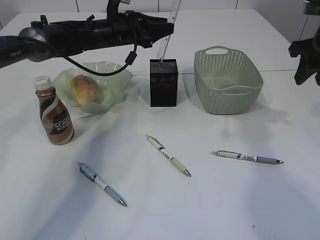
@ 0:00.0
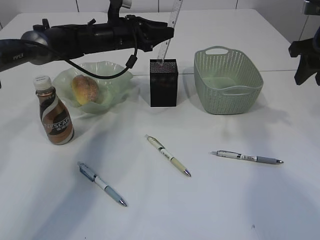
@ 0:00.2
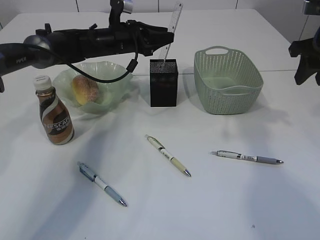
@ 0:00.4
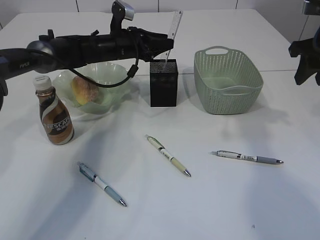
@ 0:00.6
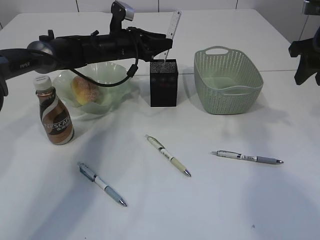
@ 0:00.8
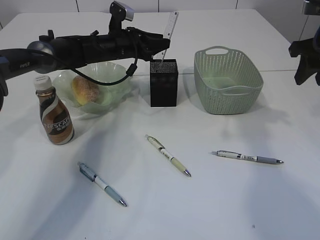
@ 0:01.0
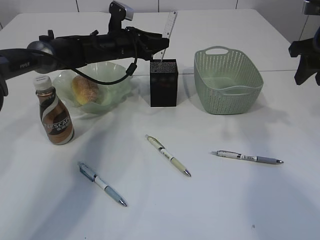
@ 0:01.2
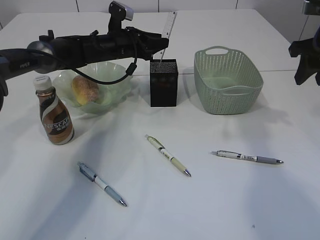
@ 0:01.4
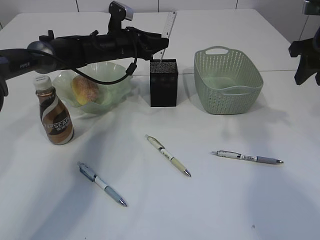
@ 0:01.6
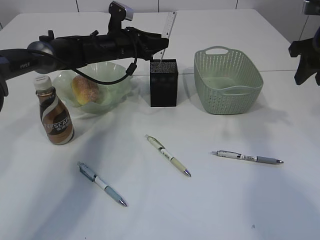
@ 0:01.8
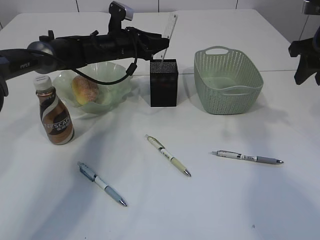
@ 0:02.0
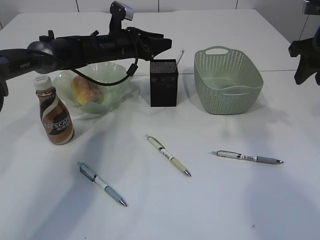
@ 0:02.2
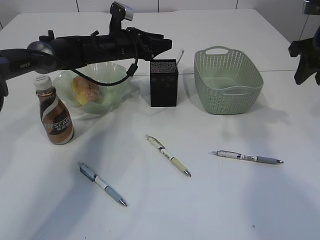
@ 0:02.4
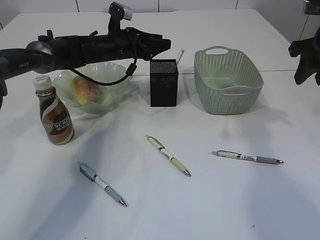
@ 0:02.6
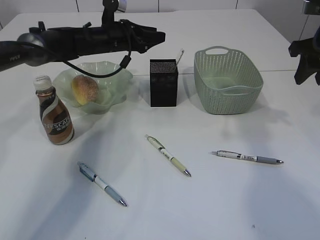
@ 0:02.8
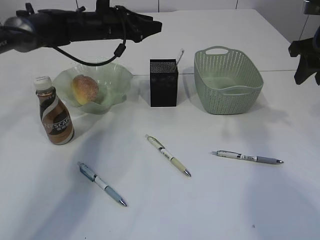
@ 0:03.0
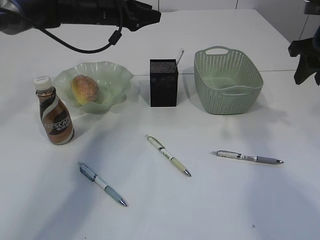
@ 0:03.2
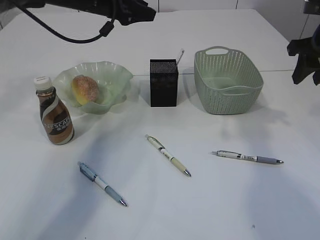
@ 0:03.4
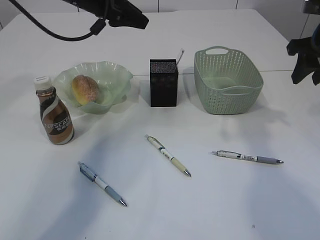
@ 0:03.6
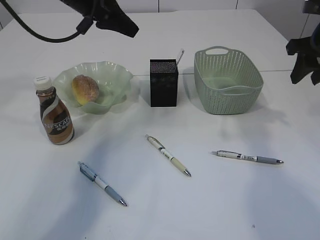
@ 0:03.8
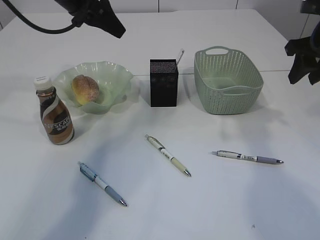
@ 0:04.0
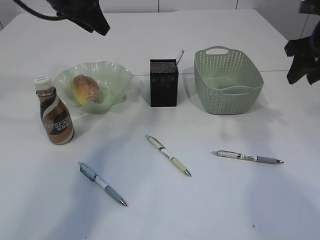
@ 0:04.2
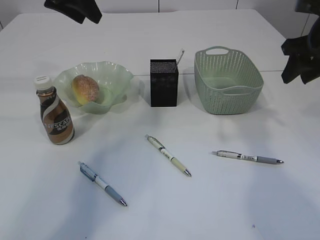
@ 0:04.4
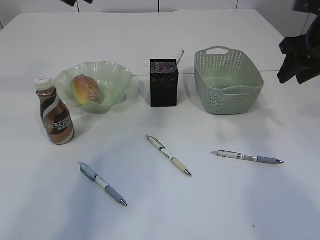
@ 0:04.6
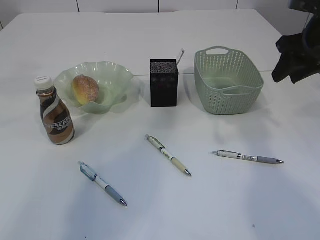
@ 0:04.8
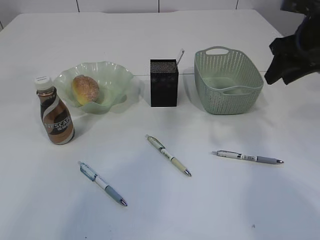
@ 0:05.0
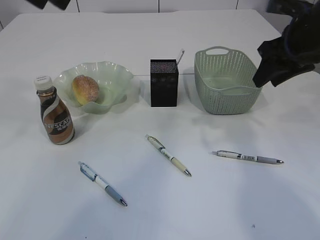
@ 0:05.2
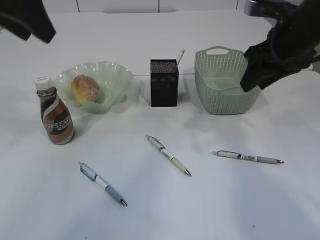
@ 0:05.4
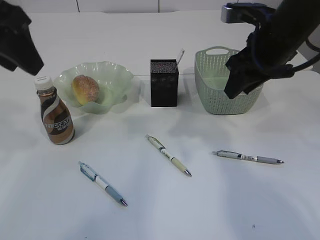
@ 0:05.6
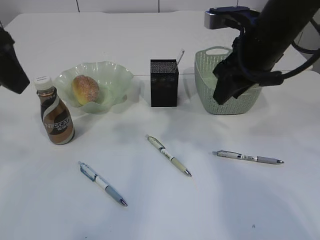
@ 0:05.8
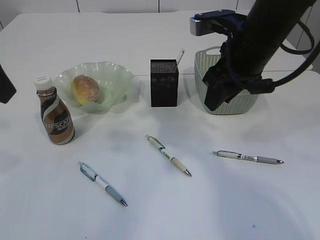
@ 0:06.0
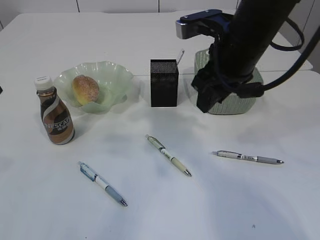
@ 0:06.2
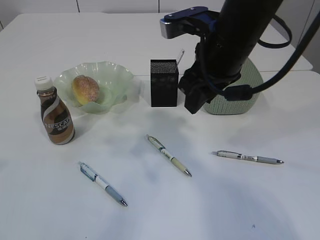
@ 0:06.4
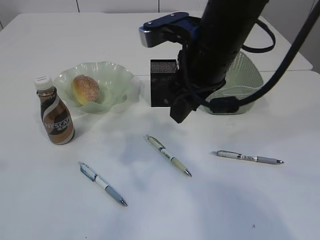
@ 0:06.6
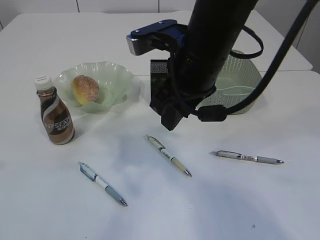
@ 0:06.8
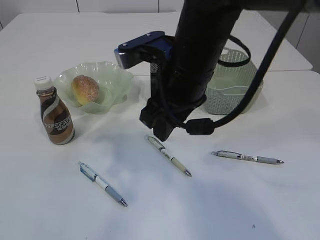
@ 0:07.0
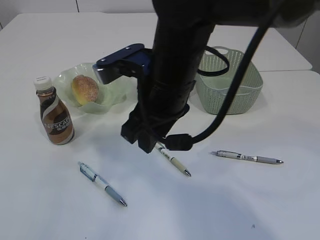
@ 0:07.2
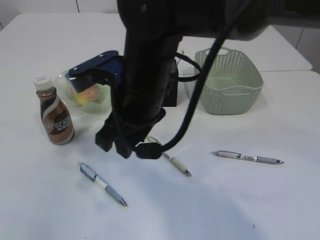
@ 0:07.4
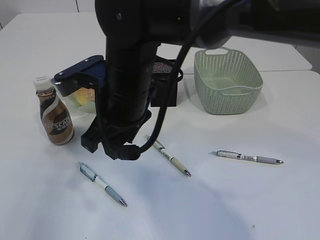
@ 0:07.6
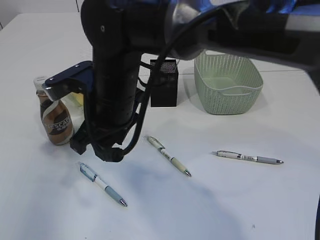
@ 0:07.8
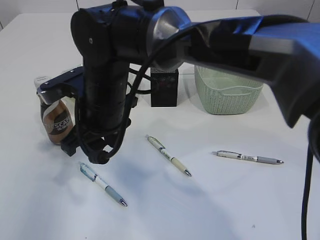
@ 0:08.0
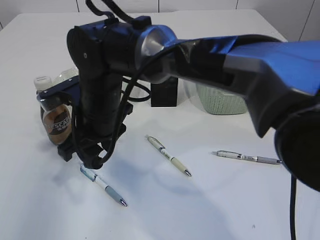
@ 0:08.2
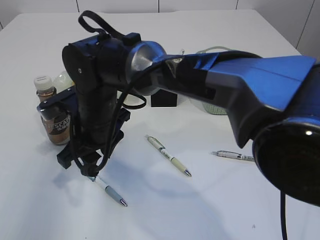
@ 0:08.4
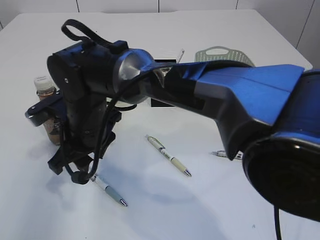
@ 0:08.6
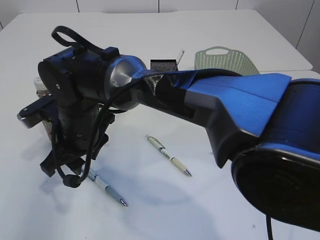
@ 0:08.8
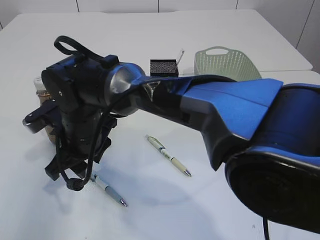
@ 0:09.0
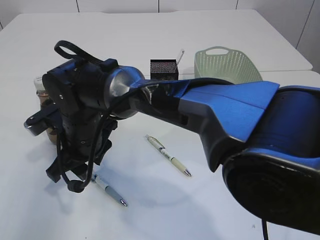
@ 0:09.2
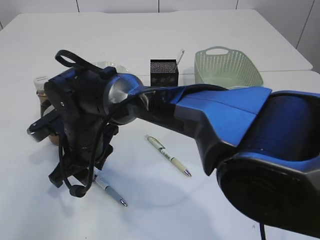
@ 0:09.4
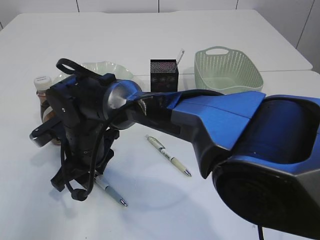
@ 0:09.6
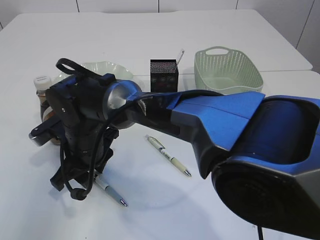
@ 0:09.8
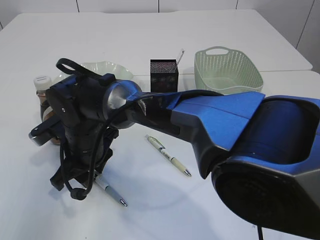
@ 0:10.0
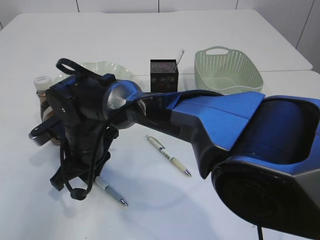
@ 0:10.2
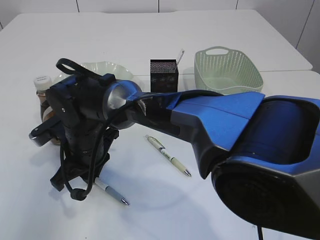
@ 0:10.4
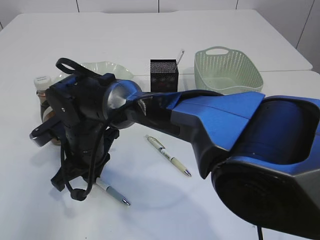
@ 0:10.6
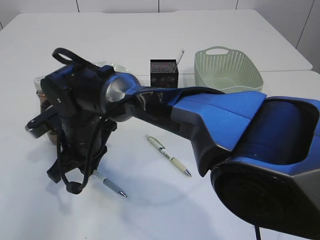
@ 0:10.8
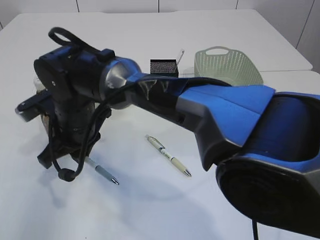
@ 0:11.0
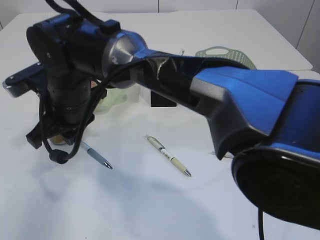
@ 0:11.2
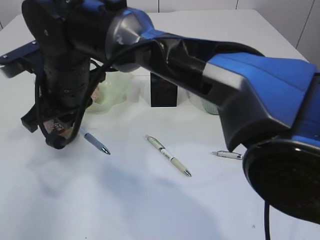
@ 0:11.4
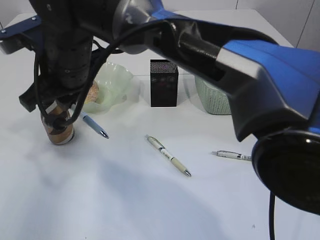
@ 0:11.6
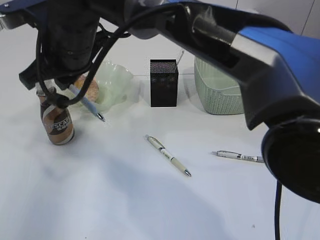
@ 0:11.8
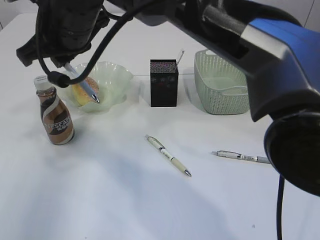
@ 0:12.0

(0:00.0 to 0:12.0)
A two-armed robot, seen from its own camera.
Step, 0:00.0 - 0:02.8: Place the ruler into the pen holder.
Step, 0:03.0 - 0:11.8: Pick up the pen with right arm.
0:00.0 - 0:01.6: The grippers move only a little.
0:01.6 - 0:03.0: The left gripper goes roughly 5 cm upward.
0:03.0 - 0:04.4: The left gripper travels upward, backward and to the left by about 20 cm.
0:04.4 - 0:06.0: The left gripper travels backward by about 20 cm, while the right gripper heads to the left, covering roughly 15 cm.
0:06.0 - 0:07.6: The left gripper goes about 10 cm to the left. Meanwhile the right gripper moves to the left, about 20 cm.
0:07.6 - 0:09.0: The right gripper travels downward and to the left by about 10 cm.
0:09.0 - 0:10.4: The right gripper closes.
0:10.4 - 0:12.0: The right gripper travels upward by about 20 cm.

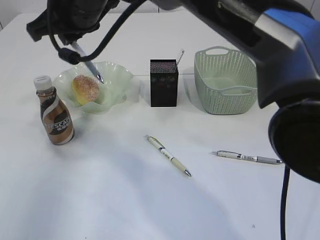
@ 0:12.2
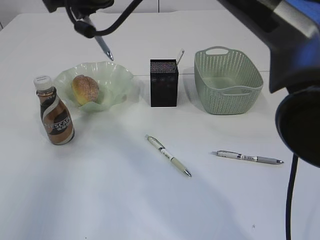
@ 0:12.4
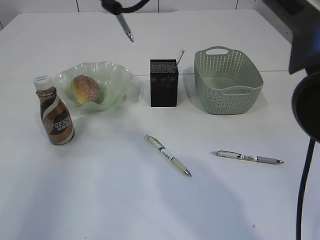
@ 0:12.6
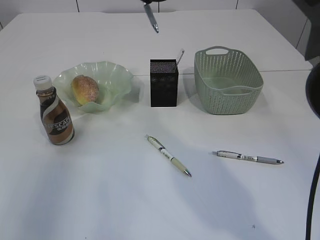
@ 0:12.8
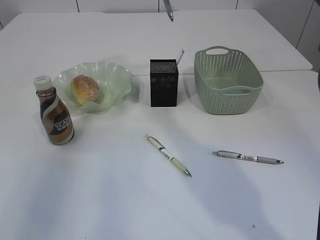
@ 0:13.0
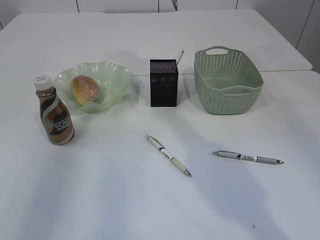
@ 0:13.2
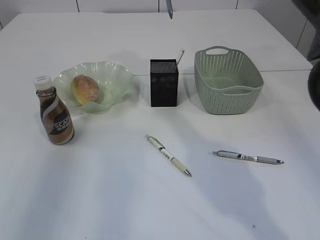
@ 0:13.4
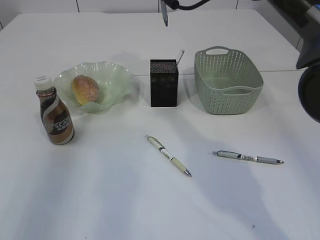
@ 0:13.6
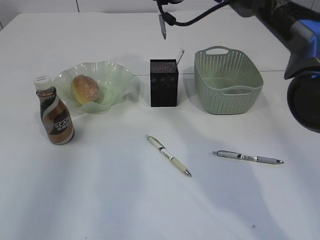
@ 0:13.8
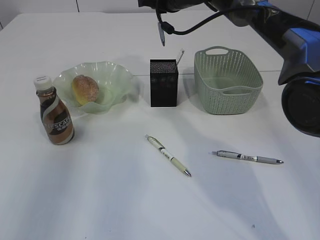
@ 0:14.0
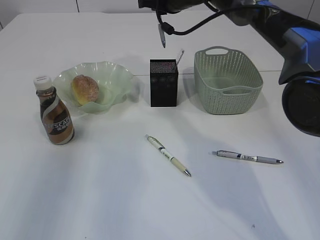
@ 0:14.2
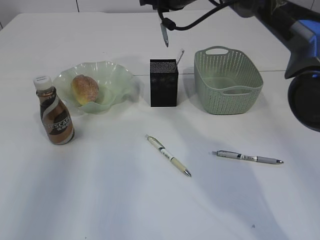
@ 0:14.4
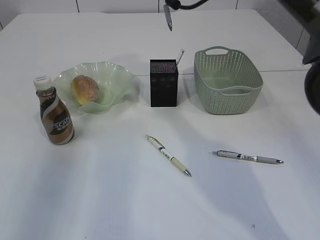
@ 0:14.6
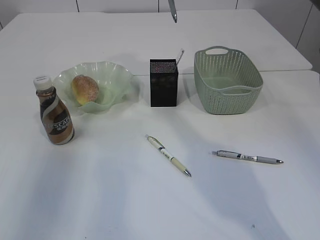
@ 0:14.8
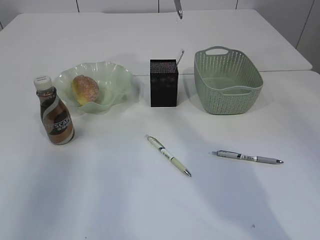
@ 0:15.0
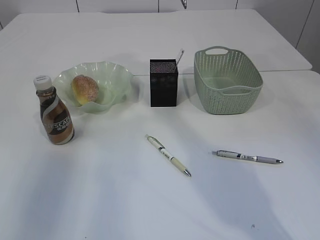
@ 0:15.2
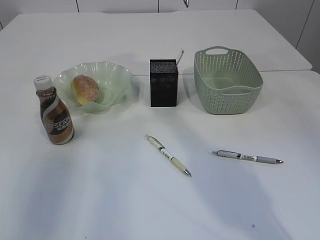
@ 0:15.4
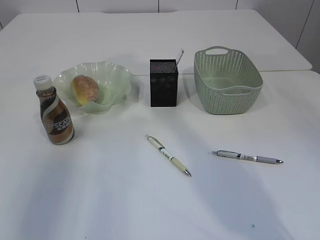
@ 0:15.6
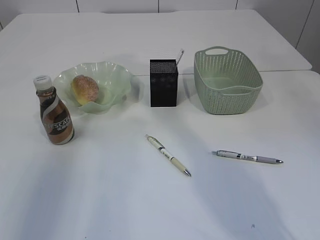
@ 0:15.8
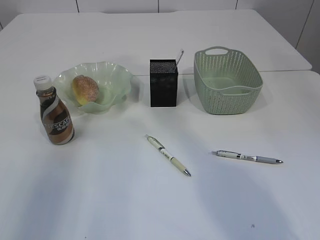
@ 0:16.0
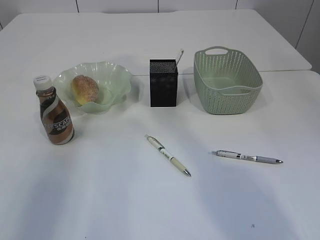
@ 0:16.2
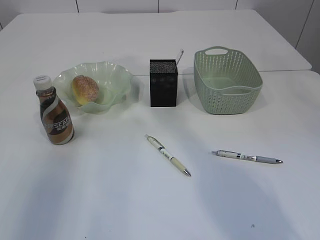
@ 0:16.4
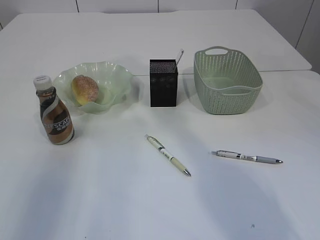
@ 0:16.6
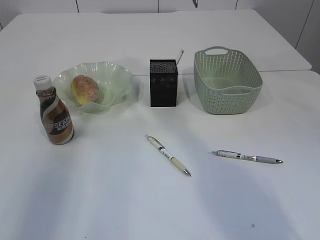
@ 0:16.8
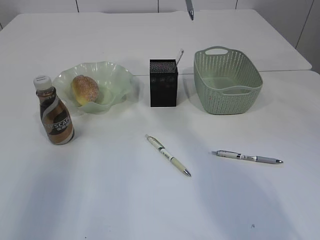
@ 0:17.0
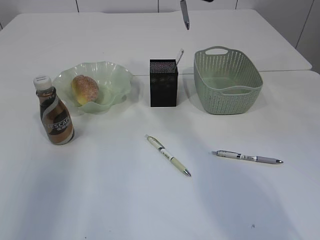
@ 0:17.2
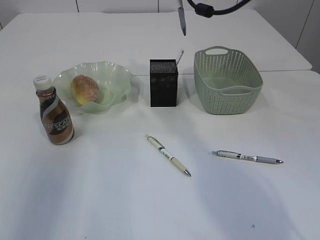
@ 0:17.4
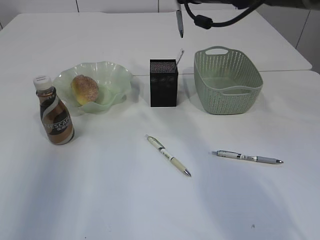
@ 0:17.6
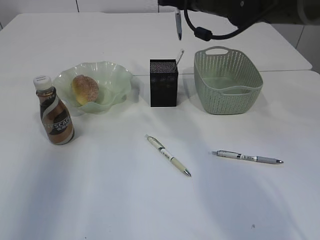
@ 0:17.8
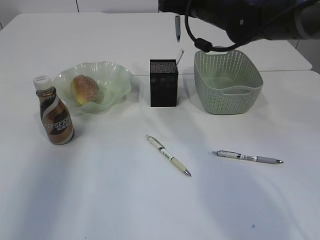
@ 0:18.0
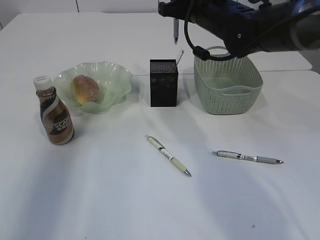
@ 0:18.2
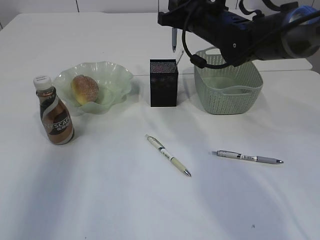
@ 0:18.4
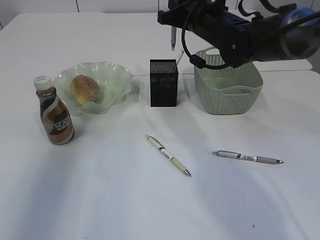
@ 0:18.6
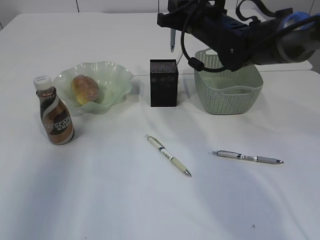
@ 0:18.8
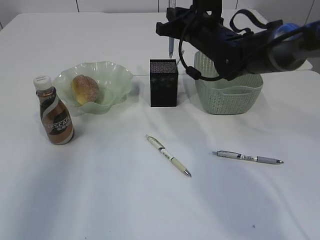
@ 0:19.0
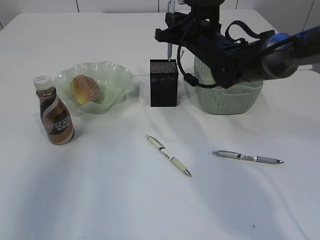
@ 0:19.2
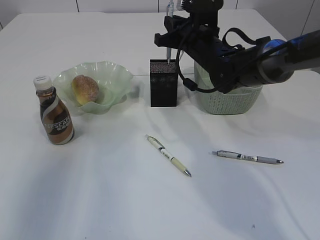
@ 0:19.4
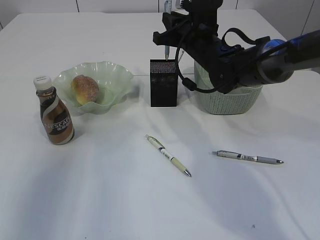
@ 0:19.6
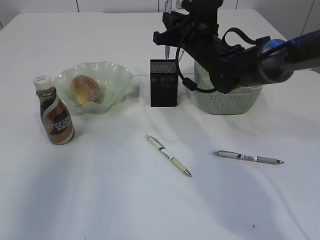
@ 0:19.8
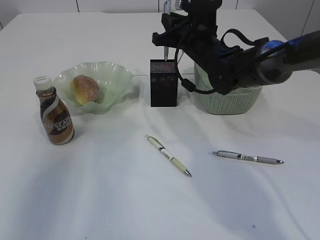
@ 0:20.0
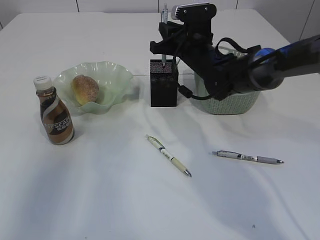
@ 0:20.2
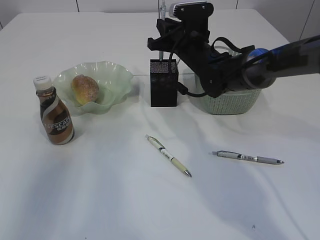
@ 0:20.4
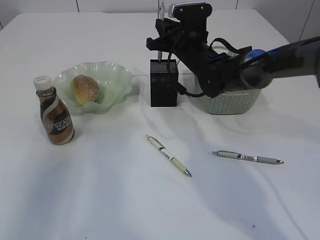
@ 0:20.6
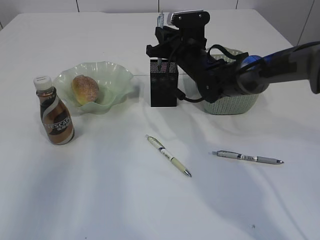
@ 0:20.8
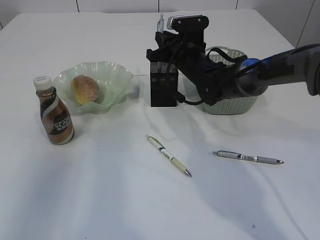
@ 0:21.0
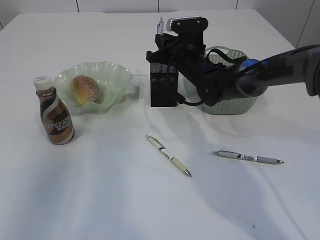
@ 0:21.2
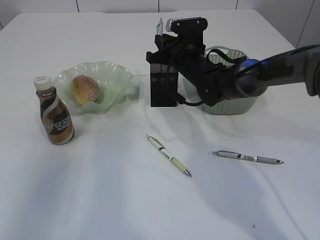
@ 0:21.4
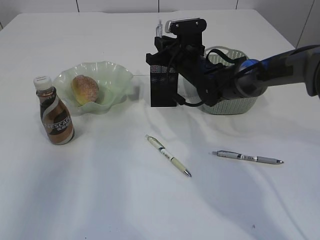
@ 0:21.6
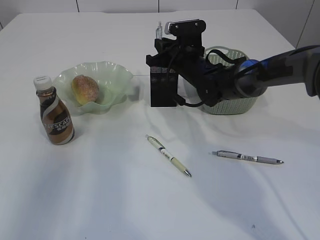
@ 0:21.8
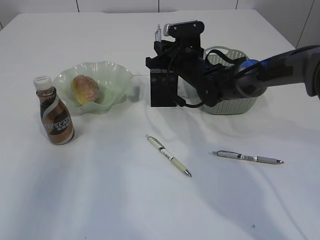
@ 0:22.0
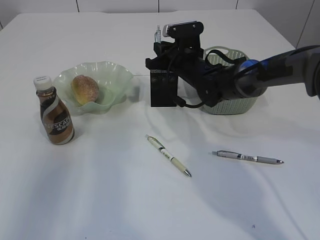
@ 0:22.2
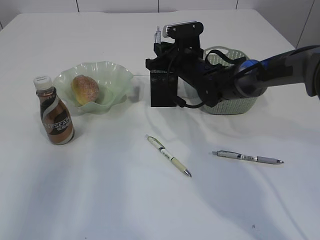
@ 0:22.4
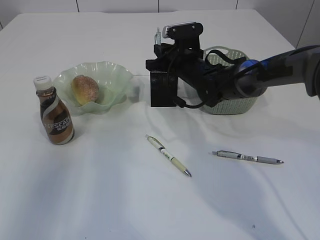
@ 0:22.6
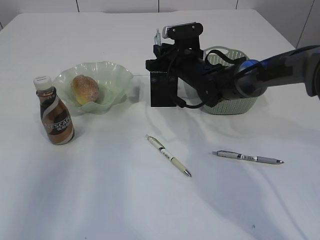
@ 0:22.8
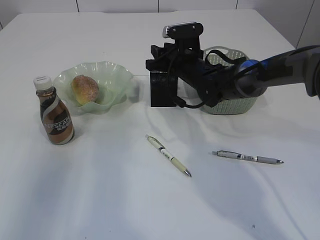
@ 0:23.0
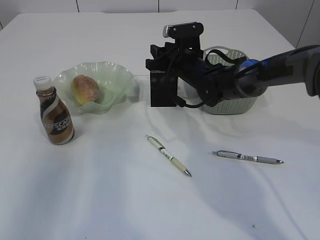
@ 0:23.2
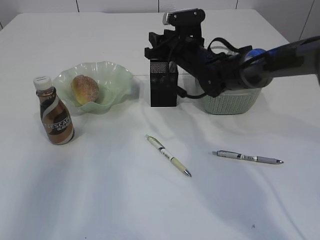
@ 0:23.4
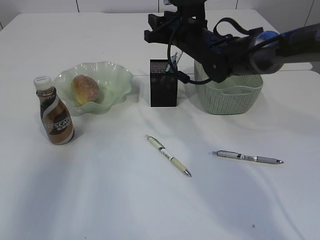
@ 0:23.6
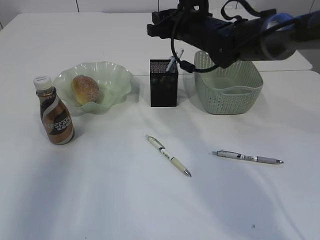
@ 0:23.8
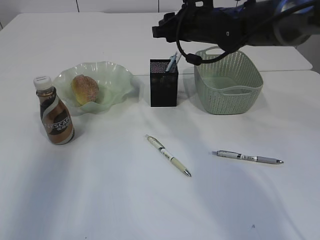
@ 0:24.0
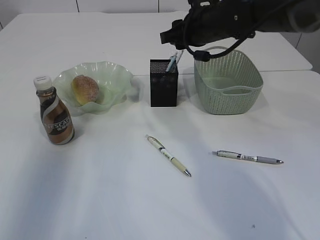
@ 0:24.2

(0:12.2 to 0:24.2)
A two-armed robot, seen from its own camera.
Step, 0:12.2 - 0:23.8: Place the pen into the pen holder.
0:12.2 - 0:13.8: The right gripper travels to the right and forward by about 20 cm.
0:13.8 - 0:15.2: The right gripper moves upward and backward, some 10 cm.
0:16.6 - 0:18.2: The right gripper is displaced downward by some 15 cm.
0:18.2 - 0:19.8: The right gripper travels downward by some 5 cm.
0:19.8 - 0:21.2: The right gripper travels downward by roughly 5 cm.
0:21.2 - 0:22.6: The grippers make only small movements.
0:22.6 - 0:24.2: The right gripper heads upward, covering some 10 cm, and opens its fingers.
